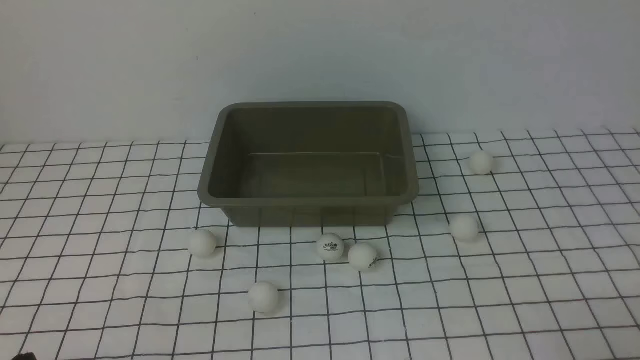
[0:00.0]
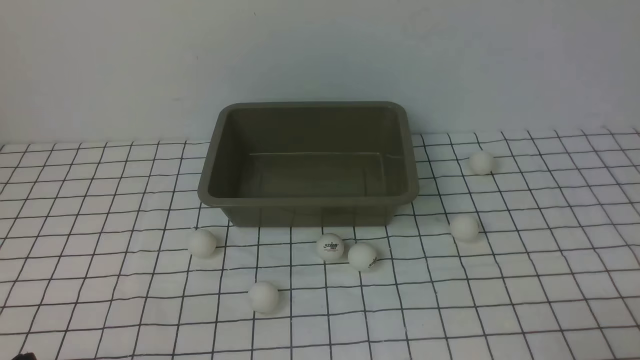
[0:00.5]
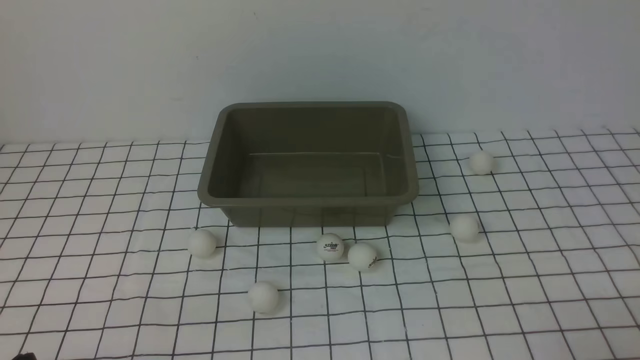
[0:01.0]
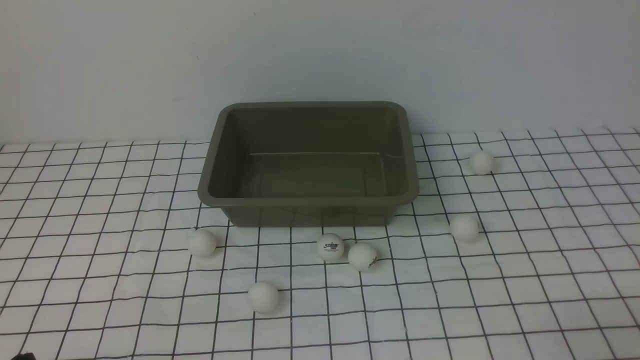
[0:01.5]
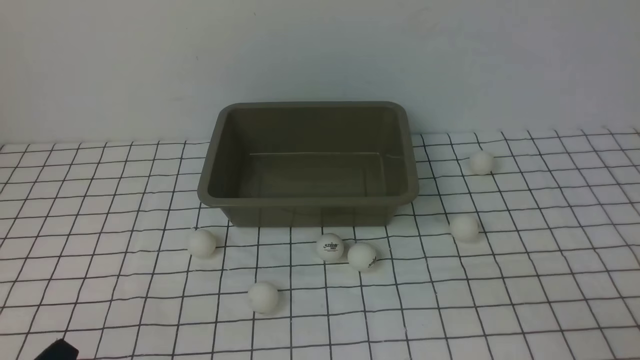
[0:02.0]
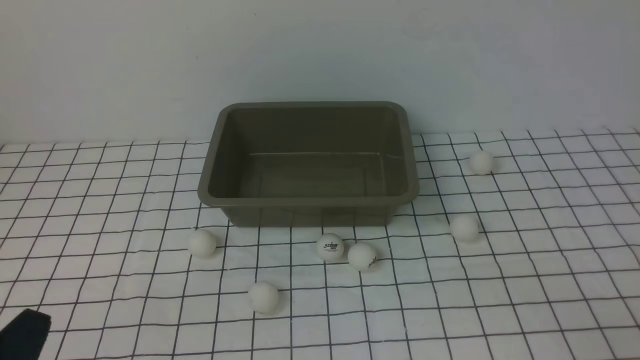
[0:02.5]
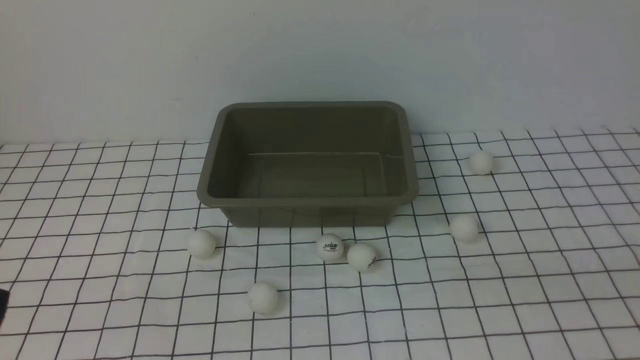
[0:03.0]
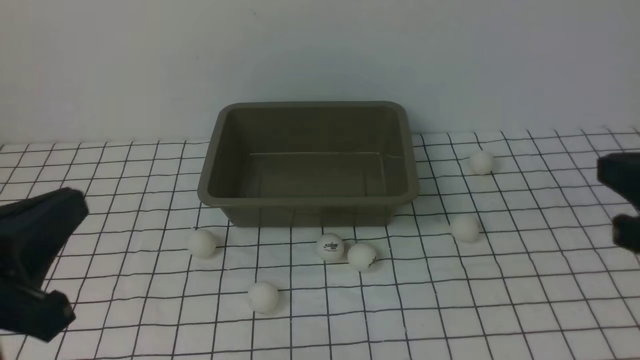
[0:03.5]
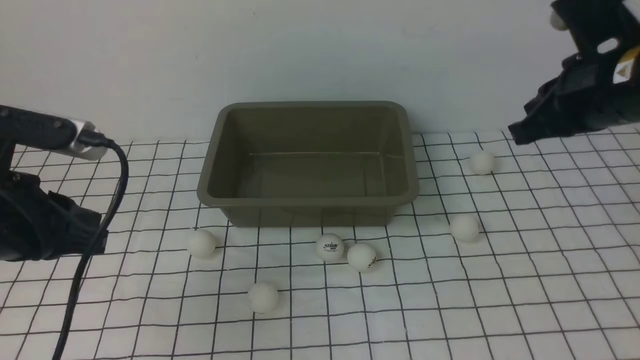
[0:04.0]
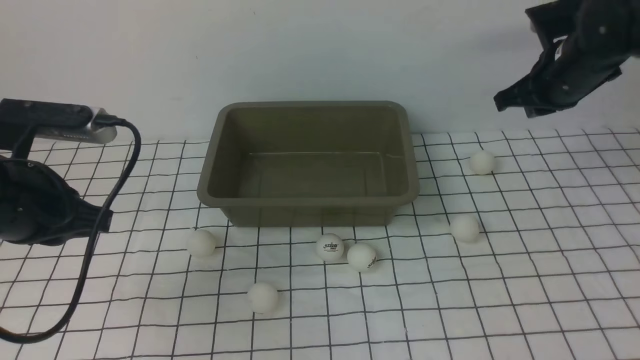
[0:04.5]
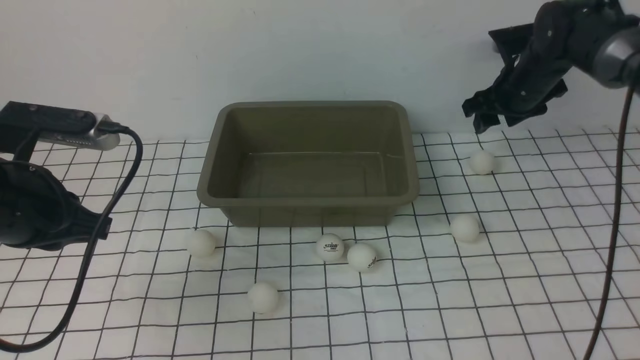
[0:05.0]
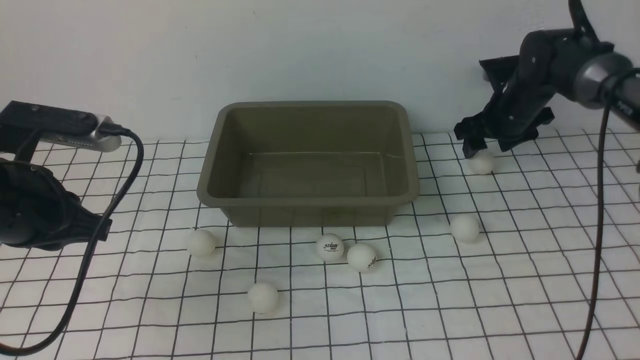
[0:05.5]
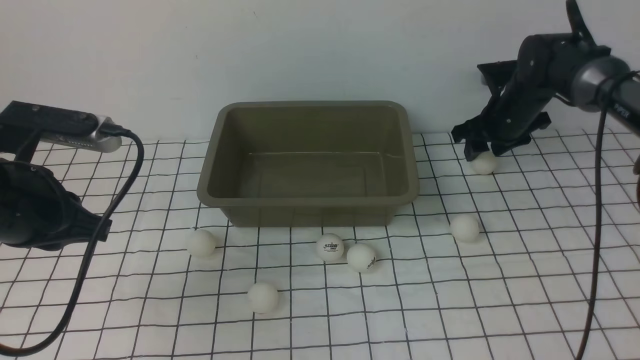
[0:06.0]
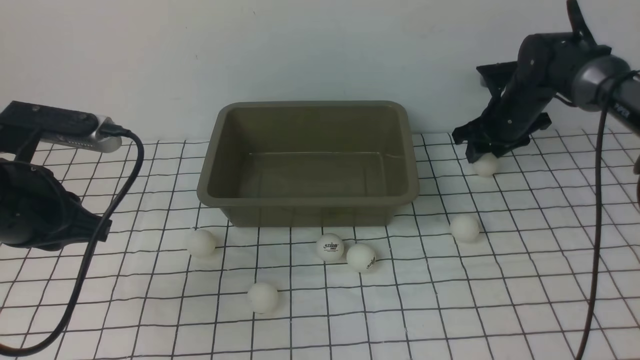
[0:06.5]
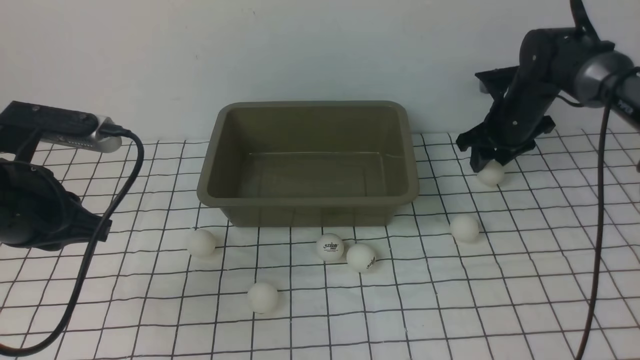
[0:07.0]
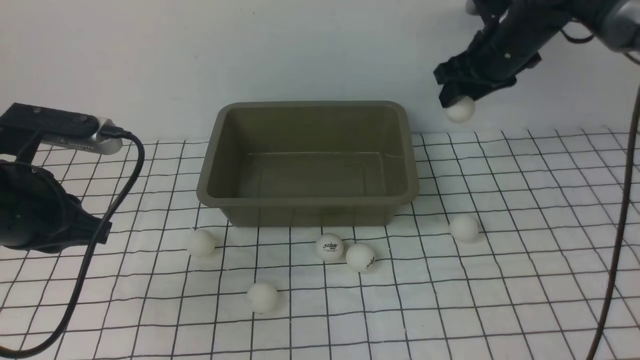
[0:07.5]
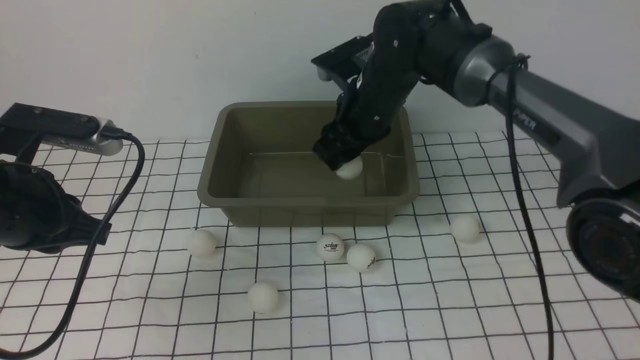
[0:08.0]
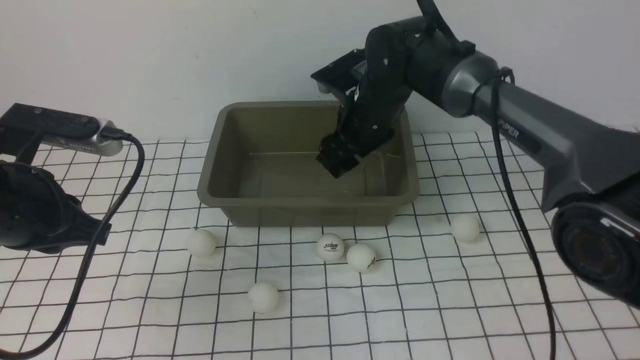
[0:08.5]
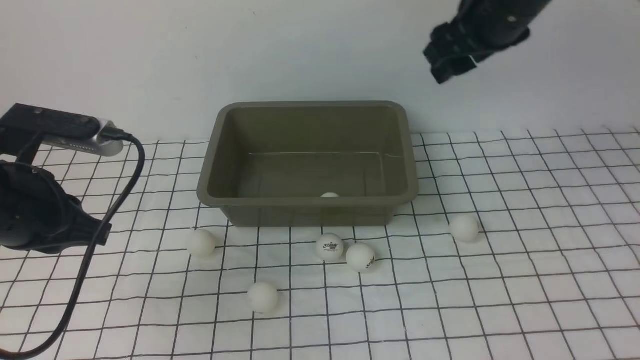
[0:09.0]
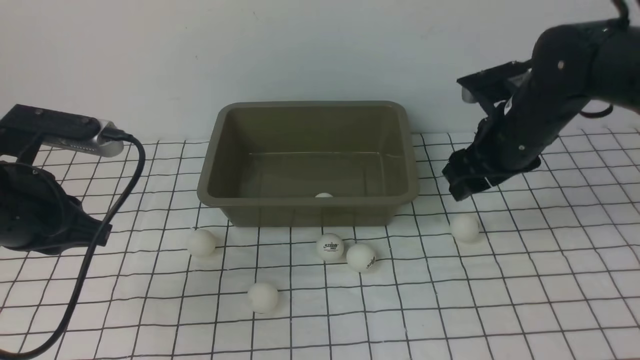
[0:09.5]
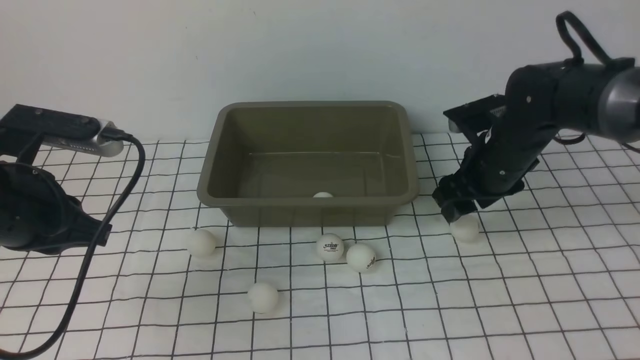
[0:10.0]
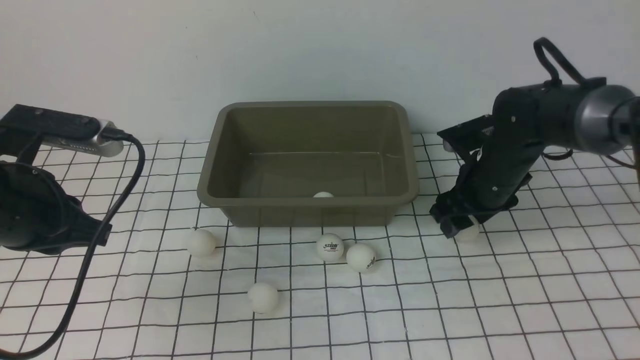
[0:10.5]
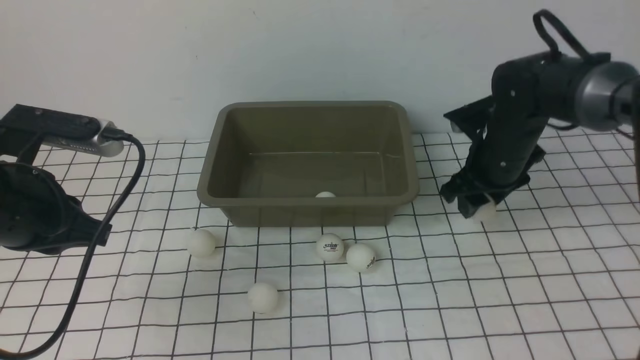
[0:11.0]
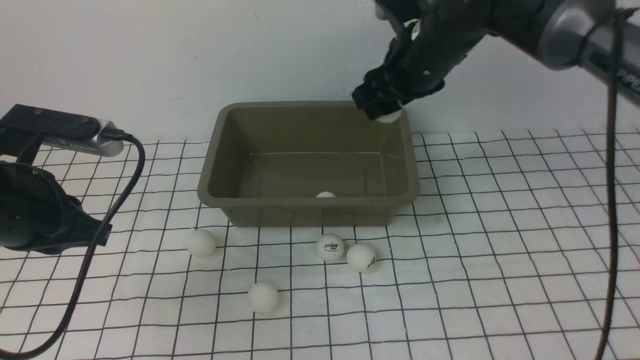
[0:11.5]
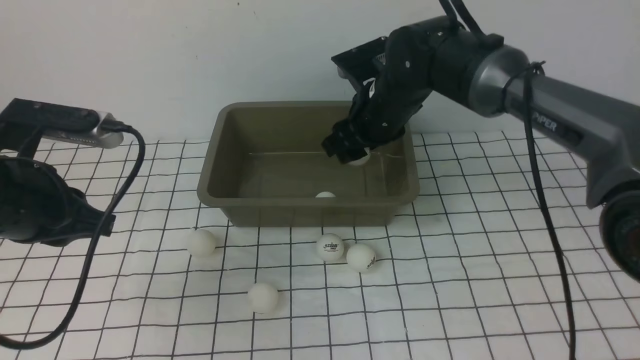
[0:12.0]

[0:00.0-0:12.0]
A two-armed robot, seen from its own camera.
Step, 0:00.0 to 0:07.0: use the right arm to clamp the table tennis ball closest to it.
Step, 0:07.5 to 0:08.5: use the right arm to put the table tennis ball into the box.
Step, 0:09.0 to 0:11.0: use the right arm to clamp the table tennis ball closest to it.
0:02.0 to 0:04.0: The grippers both shift forward and upward by about 25 cm.
0:04.0 to 0:06.0: The right gripper travels forward and downward by about 25 cm, and opens up.
0:06.0 to 0:08.0: The right gripper travels to the left and backward by approximately 20 cm.
0:08.0 to 0:10.0: The right gripper moves to the right, some 15 cm, and moves roughly 10 cm upward and comes back.
0:10.0 to 0:12.0: The right gripper travels to the left by roughly 15 cm.

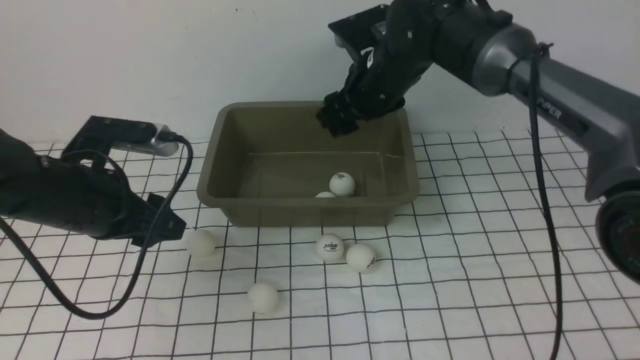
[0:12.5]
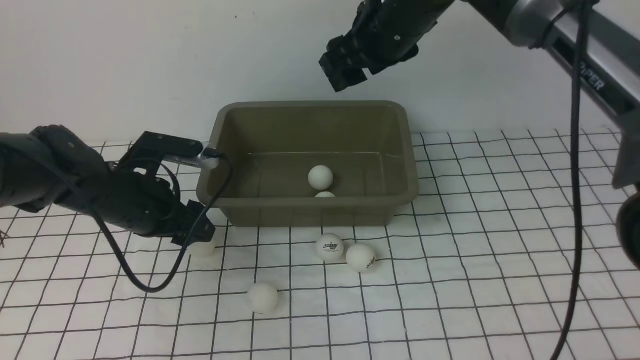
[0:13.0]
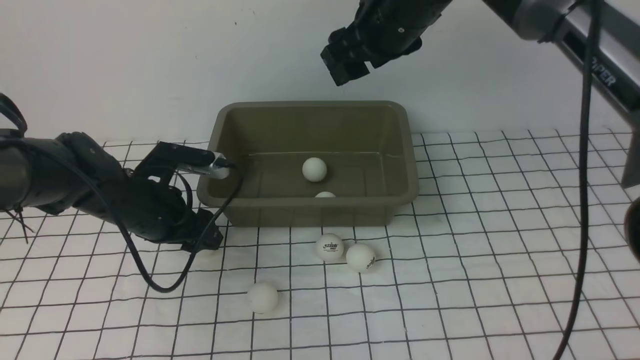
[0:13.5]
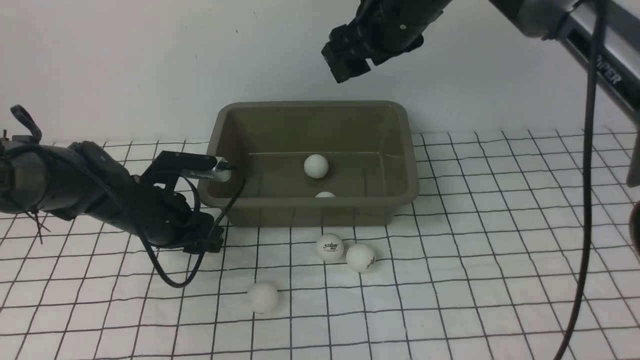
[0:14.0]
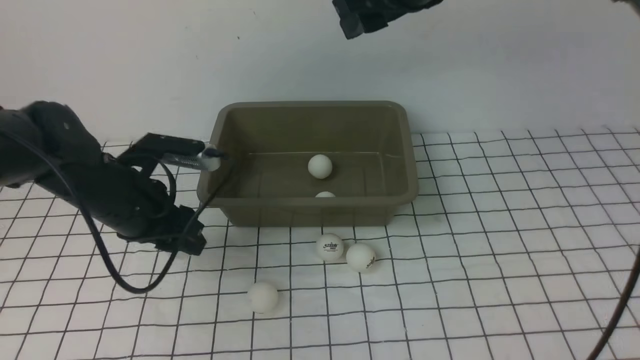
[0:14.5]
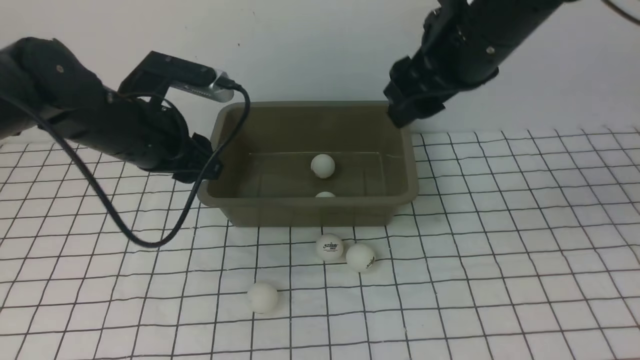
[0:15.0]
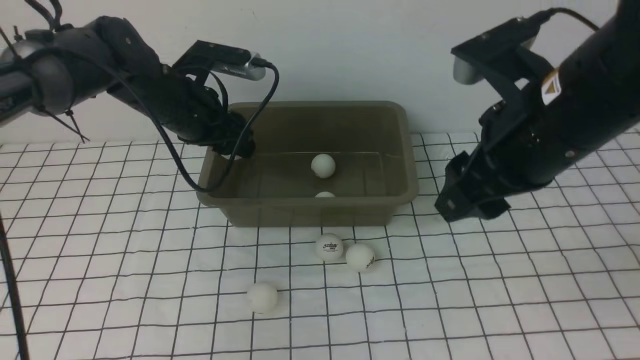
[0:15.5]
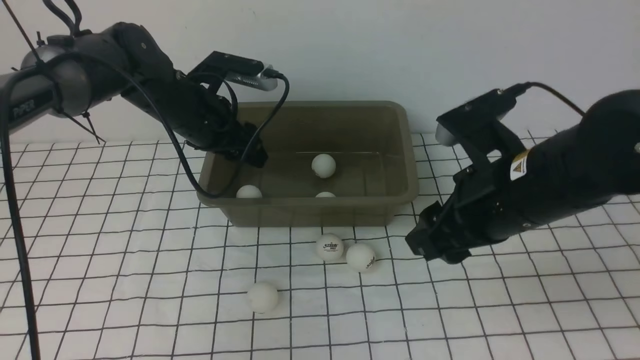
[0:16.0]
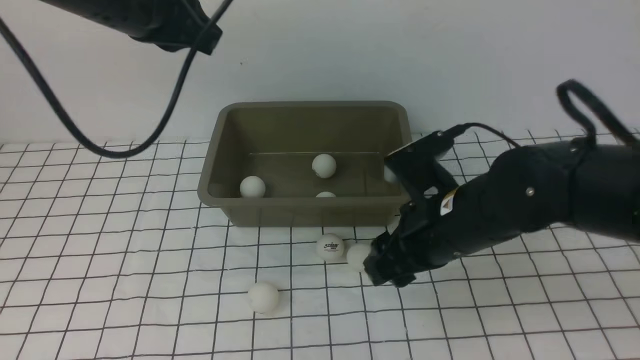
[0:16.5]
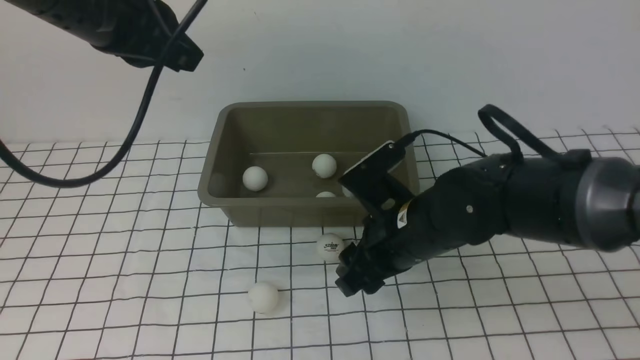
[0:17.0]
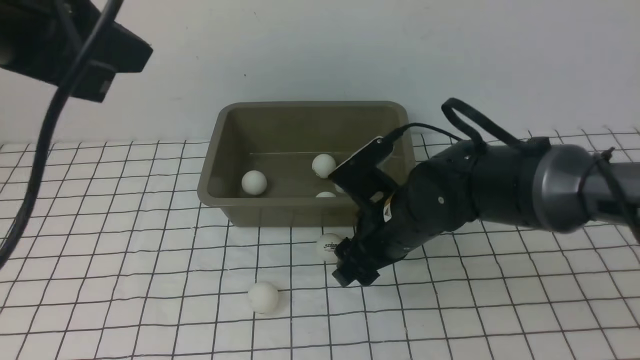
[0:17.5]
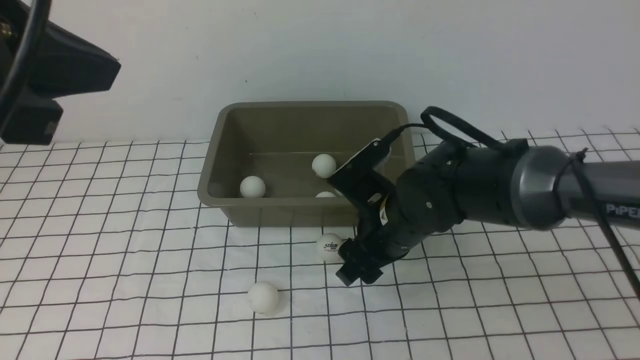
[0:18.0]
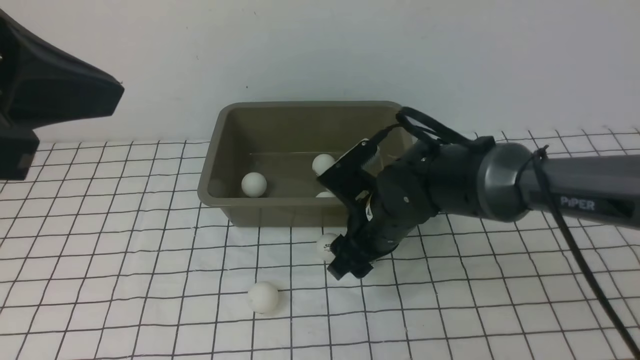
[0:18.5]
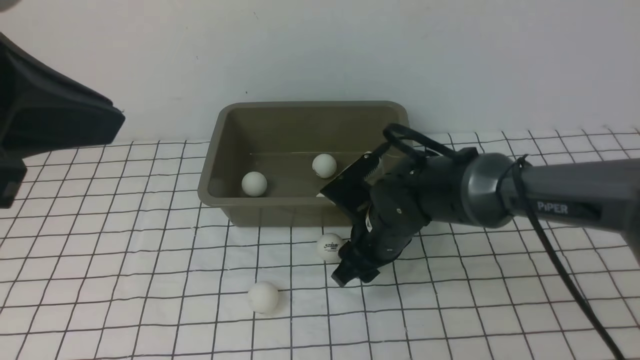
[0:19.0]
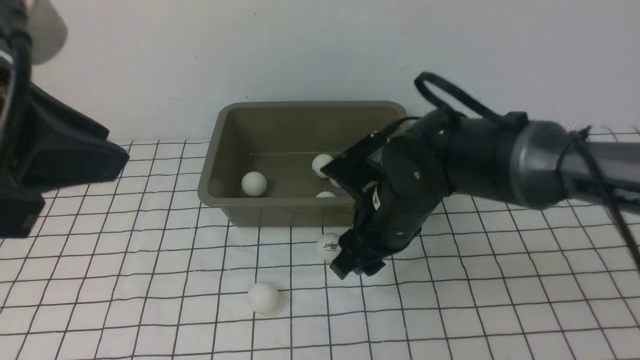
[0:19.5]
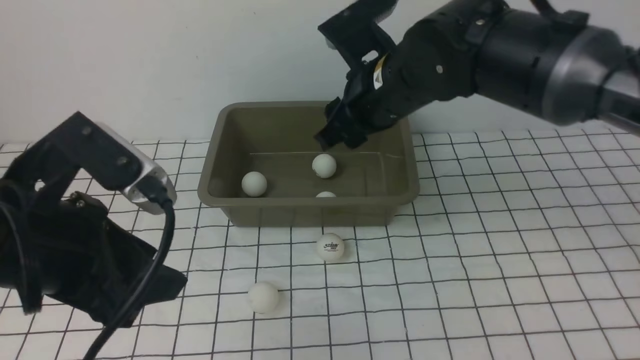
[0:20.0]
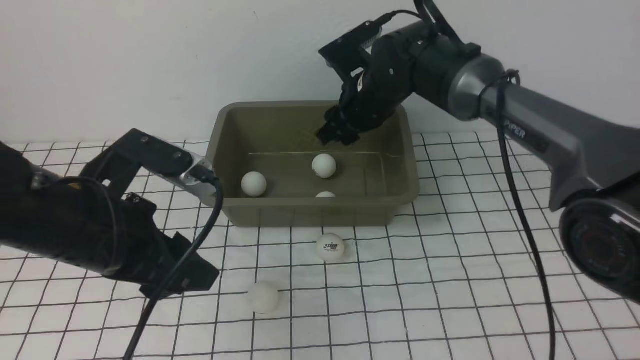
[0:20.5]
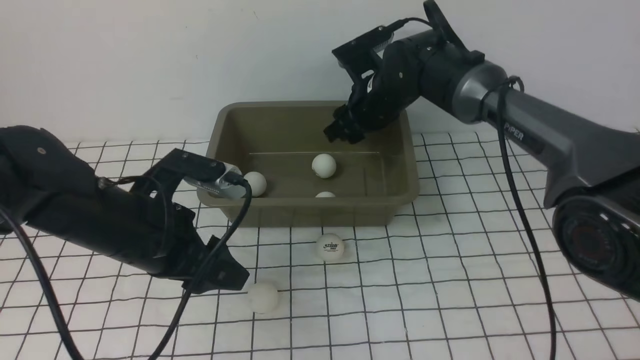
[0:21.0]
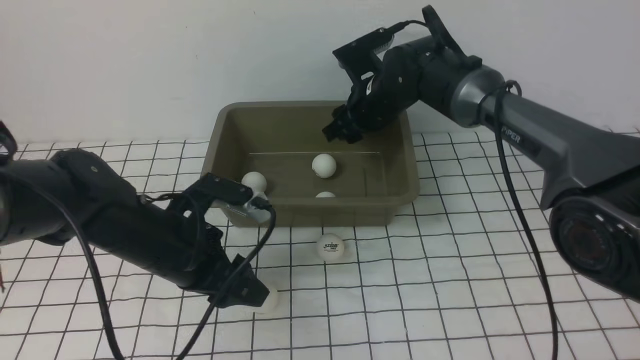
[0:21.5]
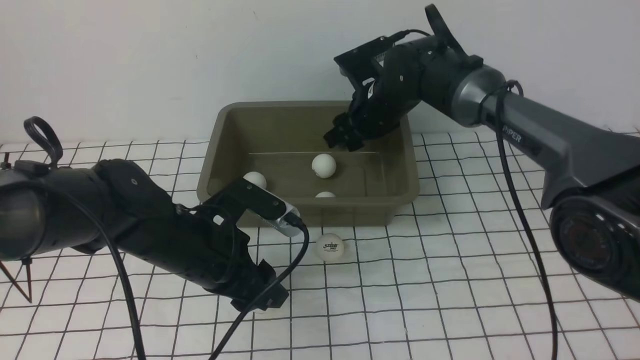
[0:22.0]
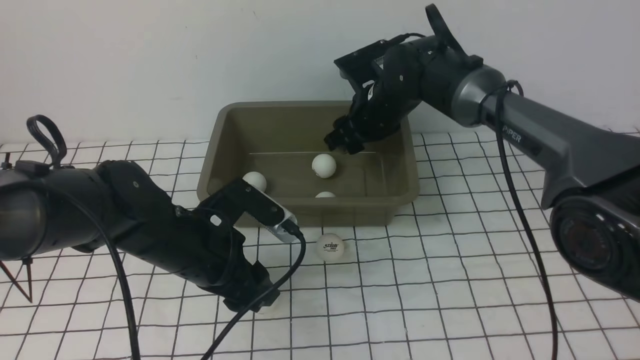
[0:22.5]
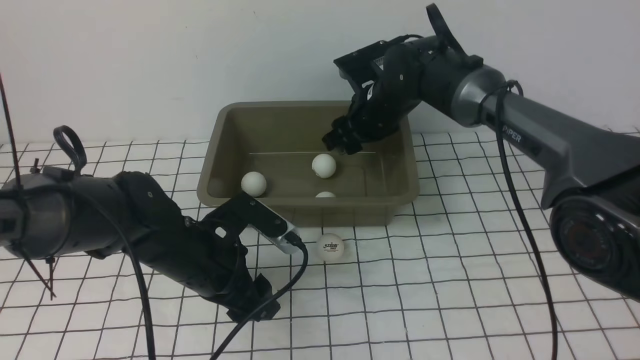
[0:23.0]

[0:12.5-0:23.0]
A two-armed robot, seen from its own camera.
Step, 0:12.5 to 0:14.0: use the left arm to clamp the table tennis ball closest to it.
Step, 0:15.0 to 0:15.5: use the left arm to put the table tennis ball into the box.
Step, 0:16.0 to 0:19.5: use the right arm to clamp the table tennis ball closest to it.
0:12.5 to 0:14.5: The right gripper is displaced upward by about 10 cm.
0:14.5 to 0:16.5: The left gripper goes roughly 20 cm upward, and closes; the right gripper moves downward and backward, approximately 25 cm.
0:16.5 to 0:19.0: The left gripper heads backward, covering approximately 20 cm; the right gripper travels downward and forward by roughly 10 cm.
0:19.0 to 0:21.0: The right gripper travels forward and upward by some 15 cm. Meanwhile the left gripper travels downward and forward by about 25 cm, and opens its fingers.
0:21.0 to 0:23.0: The left gripper goes some 5 cm downward.
